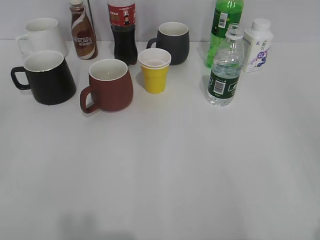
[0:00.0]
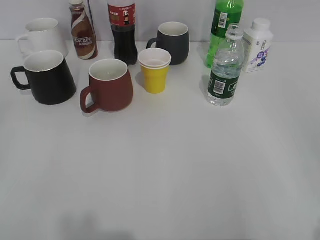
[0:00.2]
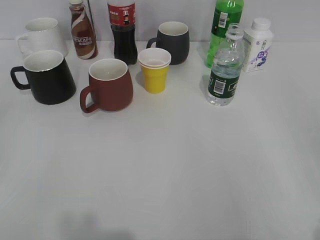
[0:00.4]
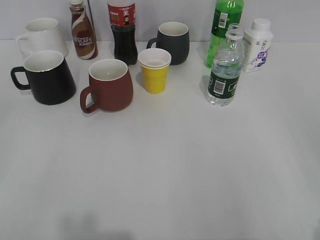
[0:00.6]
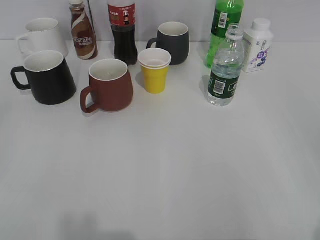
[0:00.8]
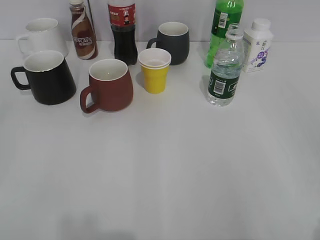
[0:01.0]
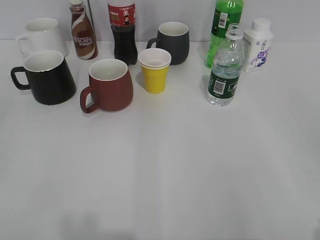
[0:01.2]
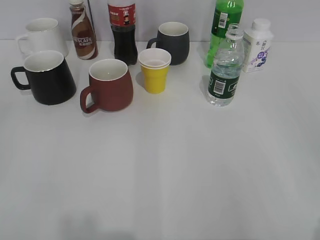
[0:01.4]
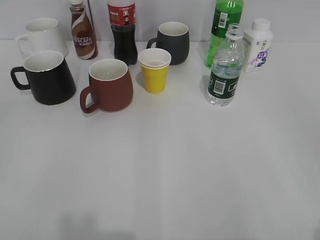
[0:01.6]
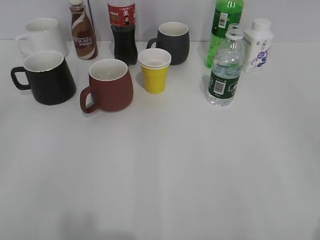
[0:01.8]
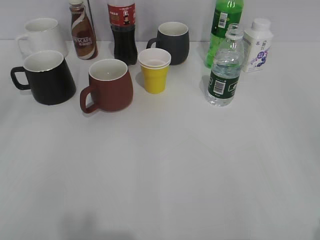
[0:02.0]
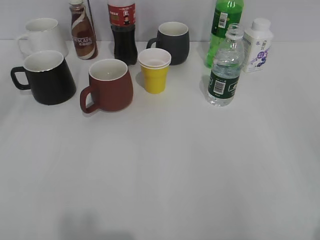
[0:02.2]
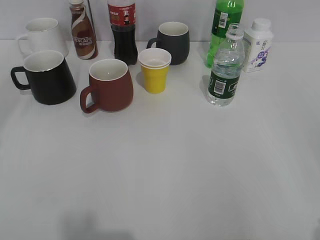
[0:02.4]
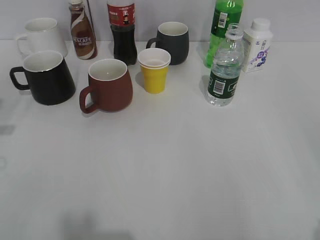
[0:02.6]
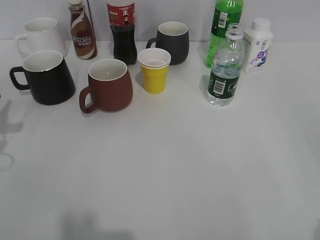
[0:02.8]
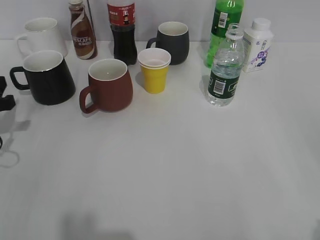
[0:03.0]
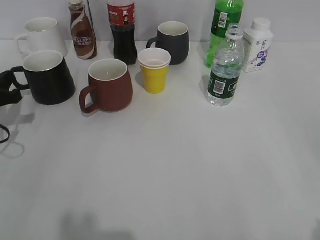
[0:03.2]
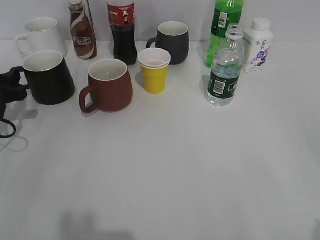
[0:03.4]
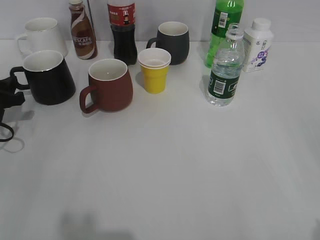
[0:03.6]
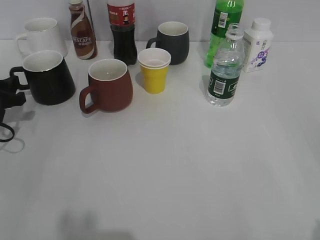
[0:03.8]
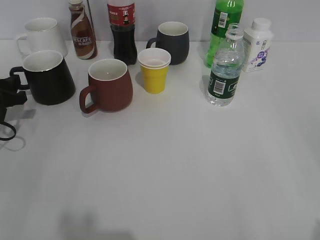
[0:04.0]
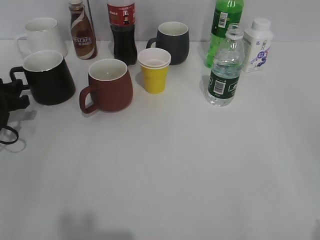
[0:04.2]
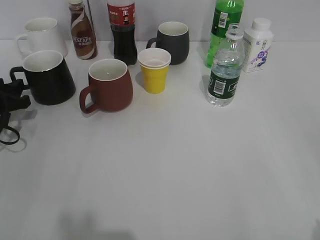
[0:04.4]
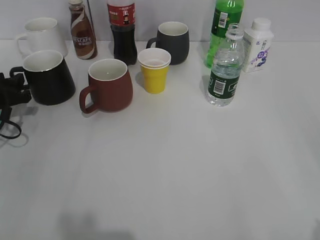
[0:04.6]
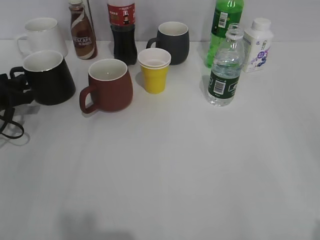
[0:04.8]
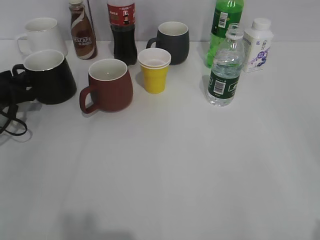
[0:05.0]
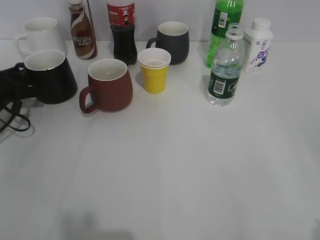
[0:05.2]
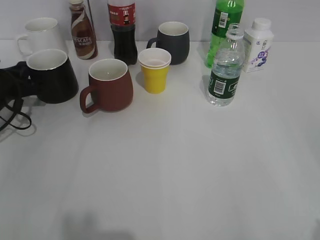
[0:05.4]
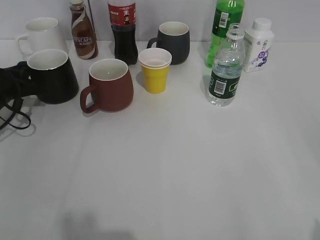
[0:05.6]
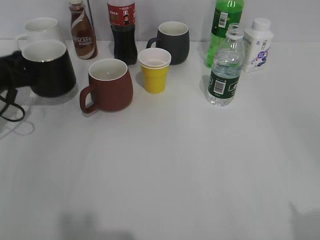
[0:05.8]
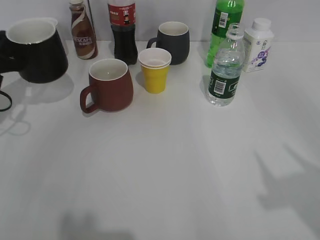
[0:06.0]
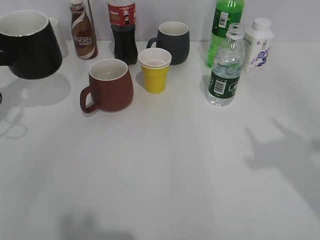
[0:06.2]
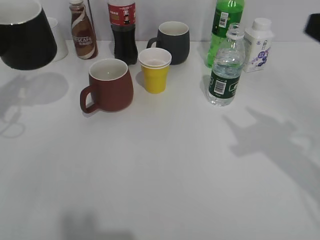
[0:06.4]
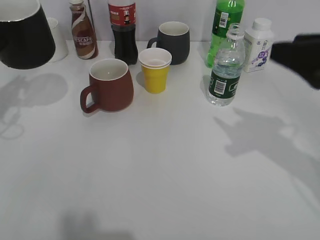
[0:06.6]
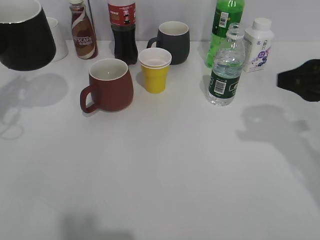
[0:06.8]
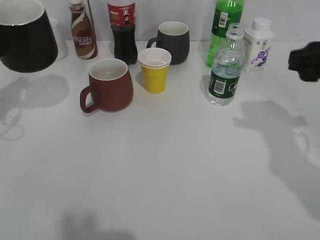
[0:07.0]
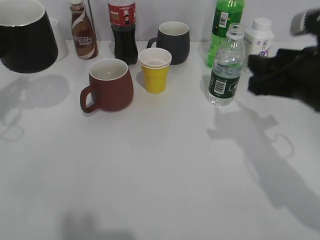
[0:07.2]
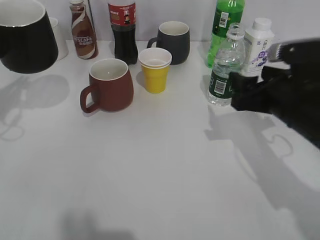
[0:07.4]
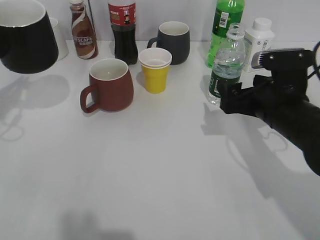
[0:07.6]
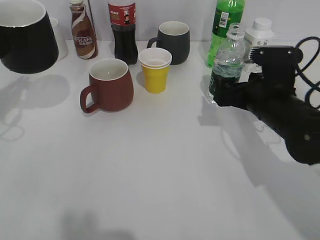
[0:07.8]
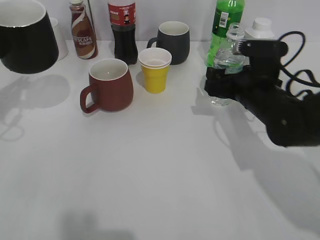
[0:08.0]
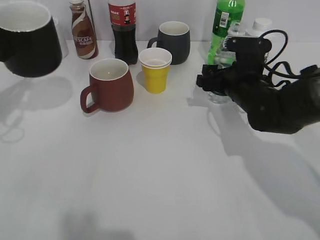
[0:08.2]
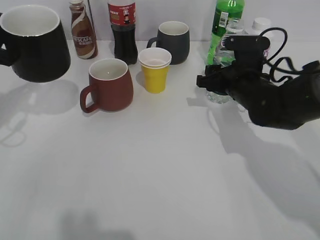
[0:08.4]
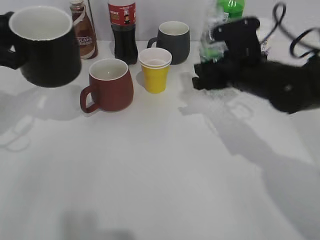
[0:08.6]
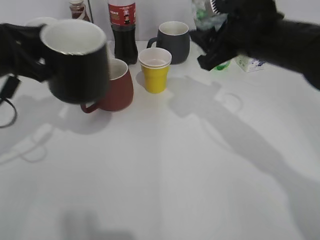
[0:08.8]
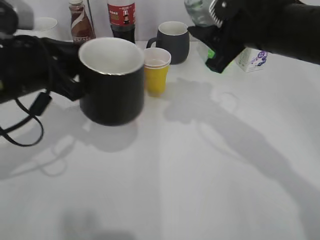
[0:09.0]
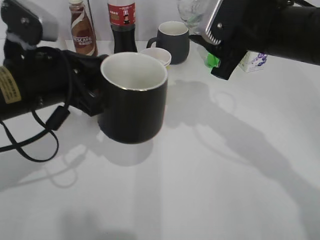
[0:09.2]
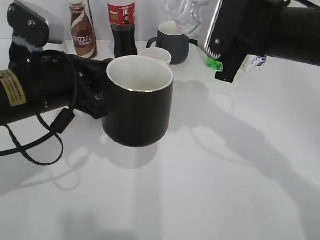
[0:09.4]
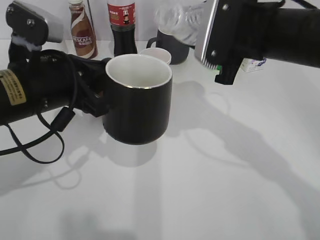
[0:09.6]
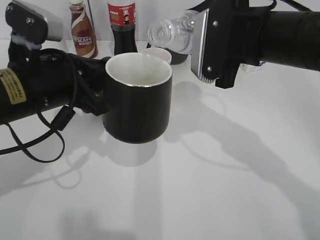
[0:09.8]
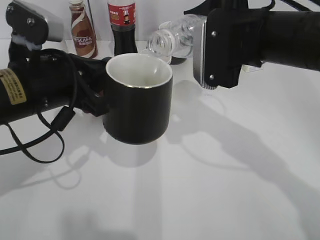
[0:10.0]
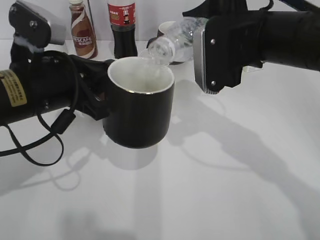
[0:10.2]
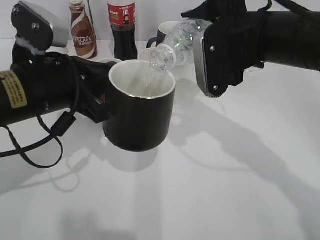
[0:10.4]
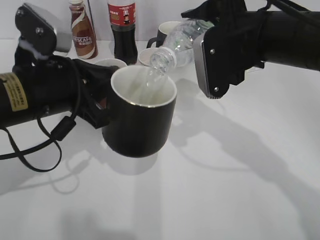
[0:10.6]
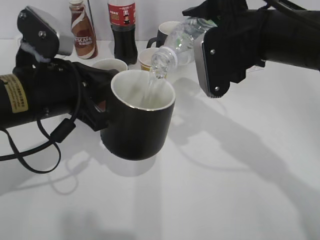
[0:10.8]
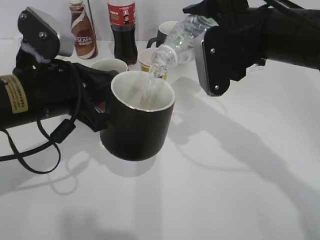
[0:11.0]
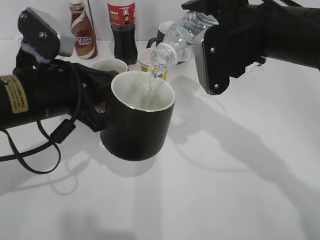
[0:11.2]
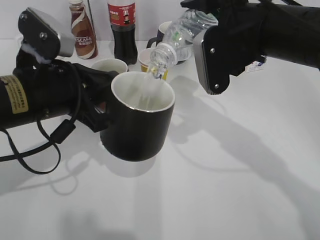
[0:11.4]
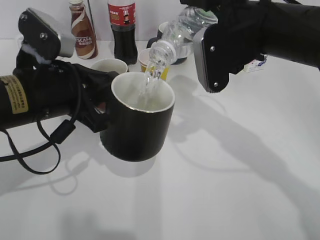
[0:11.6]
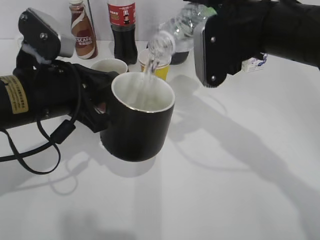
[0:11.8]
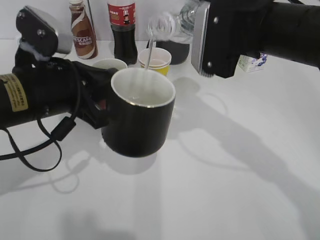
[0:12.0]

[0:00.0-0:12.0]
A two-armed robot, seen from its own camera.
Step, 0:01.8 to 0:05.2: Grasp the black cup with left gripper.
Step, 0:05.4 to 0:06.8: Lift the black cup with left gripper.
Step, 0:07.2 to 0:08.2: Grasp the bottle with water with right gripper.
0:01.6 to 0:03.0: The left gripper shifts some 30 cm forward and downward.
0:03.0 to 0:04.4: The left gripper goes roughly 5 cm forward.
0:04.4 to 0:06.0: The left gripper is displaced upward by approximately 5 cm, and closes its fingers.
0:06.0 to 0:07.6: The right gripper travels forward, downward and to the left by roughly 30 cm, and opens its fingers. The left gripper travels upward by about 5 cm.
0:07.6 to 0:09.0: The left gripper goes about 10 cm to the right, while the right gripper travels upward and to the left by about 15 cm, and closes its fingers.
0:10.4 to 0:12.0: The grippers make only small movements.

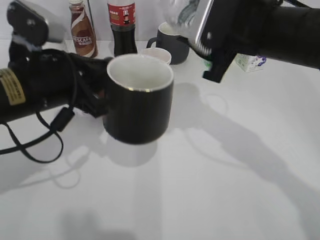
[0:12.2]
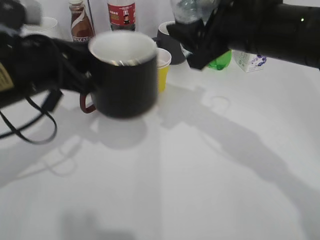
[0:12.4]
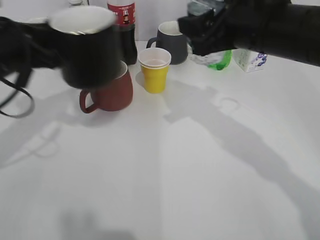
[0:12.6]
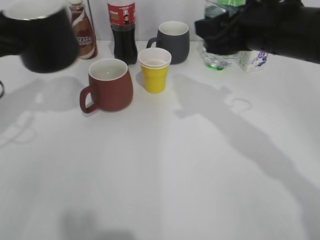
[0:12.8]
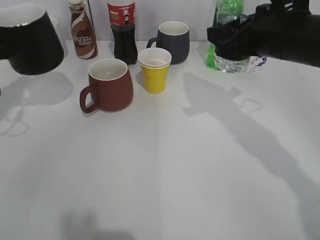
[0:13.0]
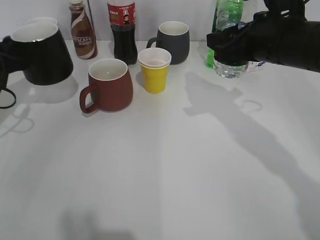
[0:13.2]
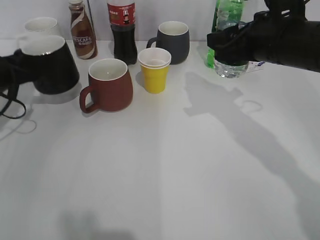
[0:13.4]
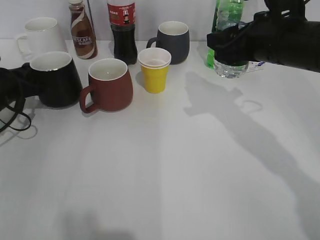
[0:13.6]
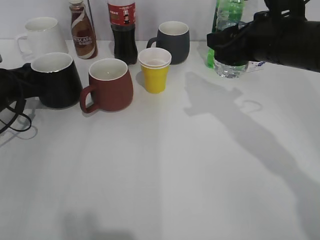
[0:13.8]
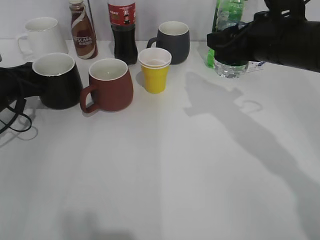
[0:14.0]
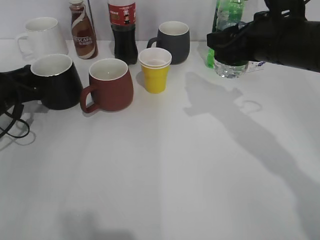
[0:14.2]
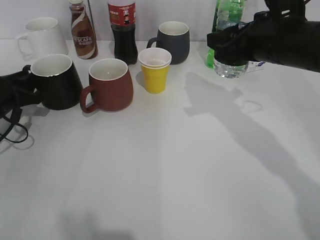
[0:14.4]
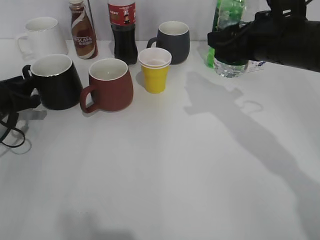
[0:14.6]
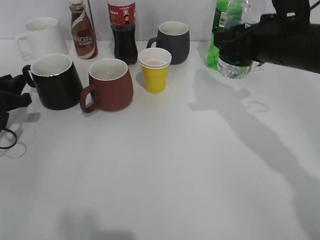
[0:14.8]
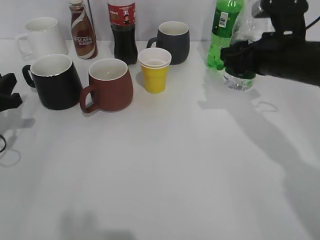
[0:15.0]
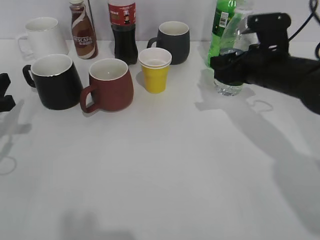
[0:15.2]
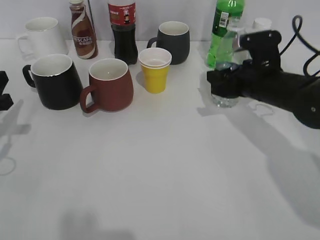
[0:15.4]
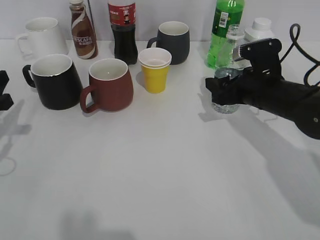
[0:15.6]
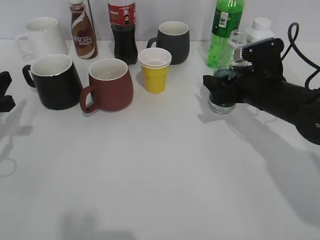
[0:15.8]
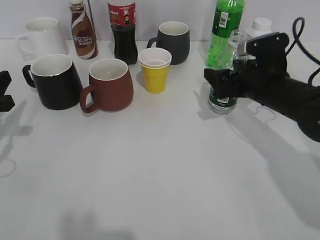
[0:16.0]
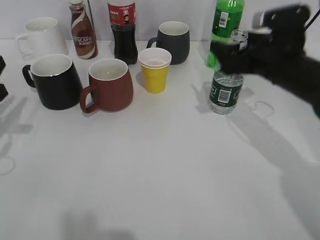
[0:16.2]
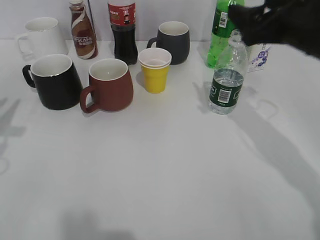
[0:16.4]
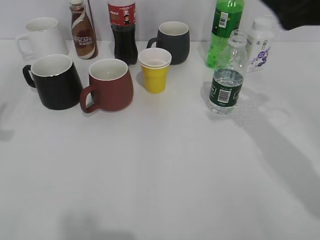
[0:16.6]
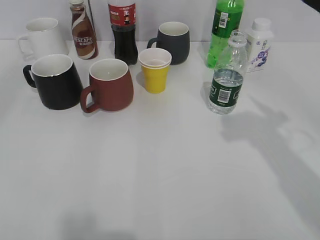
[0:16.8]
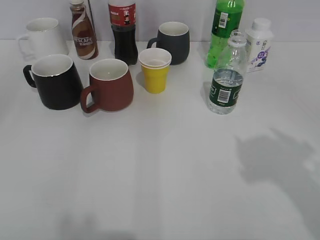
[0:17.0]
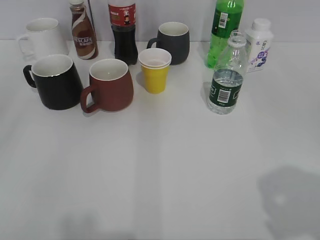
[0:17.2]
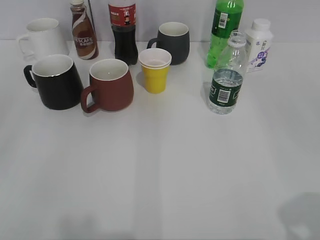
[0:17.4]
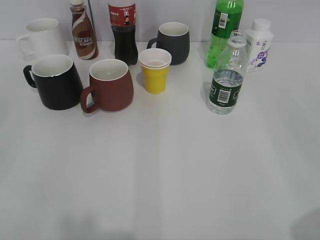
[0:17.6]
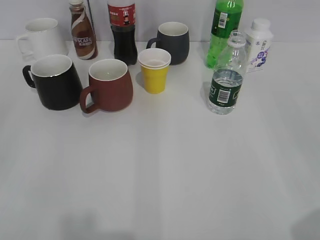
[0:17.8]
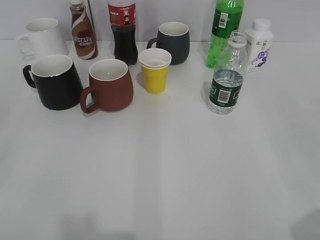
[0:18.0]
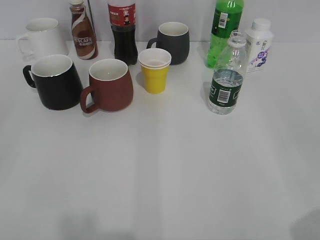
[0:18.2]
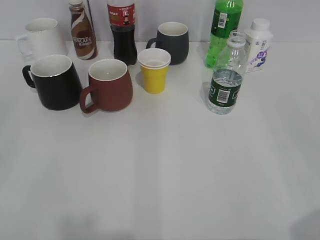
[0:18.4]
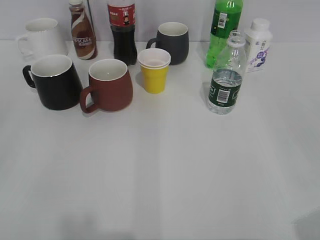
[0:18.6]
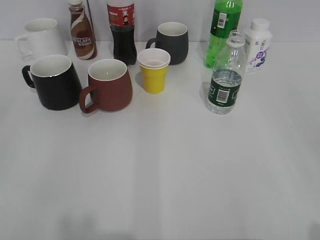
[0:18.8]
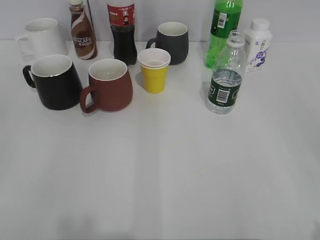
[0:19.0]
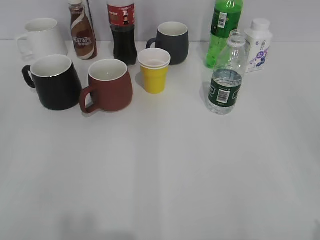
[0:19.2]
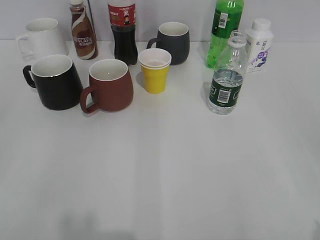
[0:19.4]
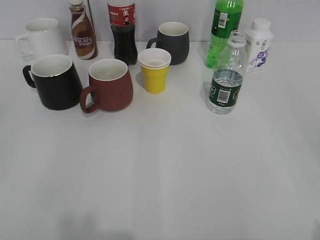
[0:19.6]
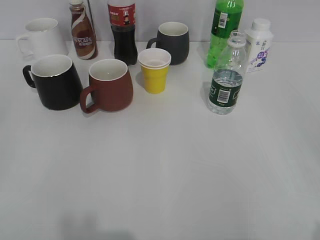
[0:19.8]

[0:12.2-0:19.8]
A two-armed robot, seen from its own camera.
Step, 0:12.2 to 0:14.2: Place the black cup on the table with left gripper.
Step, 0:14.4 to 0:16.0: Place the water bottle on the table with right gripper.
0:12.2 to 0:13.8: The left gripper is displaced to the left, forward and downward by about 25 cm; the right gripper shifts by some 5 cm.
0:13.8 to 0:15.2: The left gripper moves backward, some 10 cm, and opens. The right gripper heads downward, covering roughly 5 cm.
0:15.2 to 0:16.8: The grippers both shift upward and backward by about 25 cm. The right gripper opens.
0:16.8 to 0:18.2: The right gripper goes approximately 20 cm backward.
